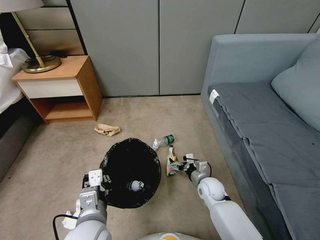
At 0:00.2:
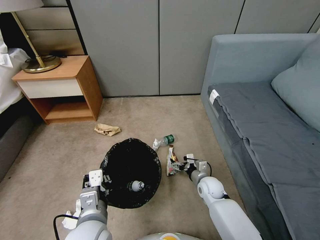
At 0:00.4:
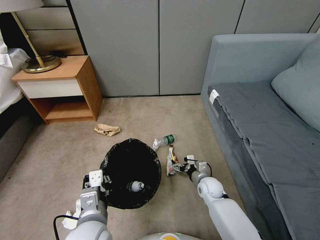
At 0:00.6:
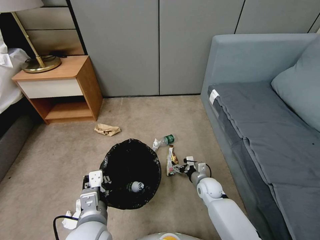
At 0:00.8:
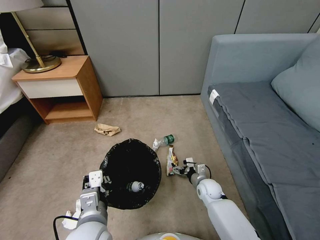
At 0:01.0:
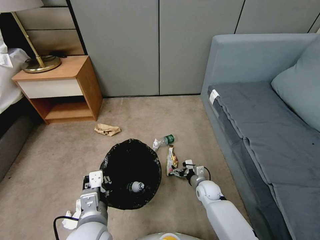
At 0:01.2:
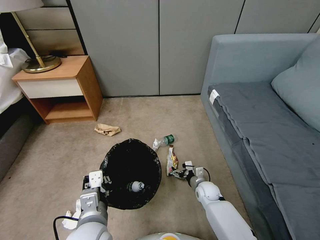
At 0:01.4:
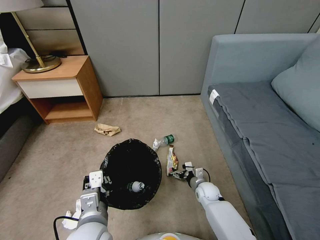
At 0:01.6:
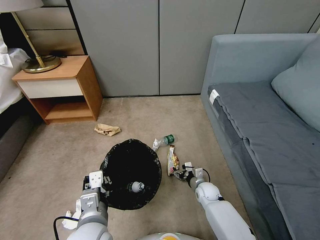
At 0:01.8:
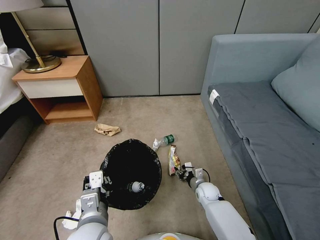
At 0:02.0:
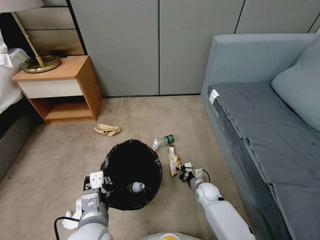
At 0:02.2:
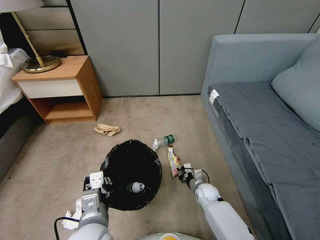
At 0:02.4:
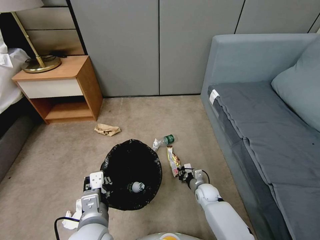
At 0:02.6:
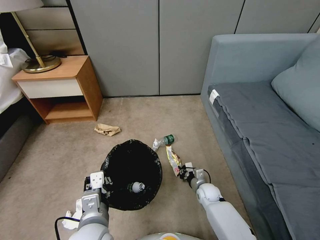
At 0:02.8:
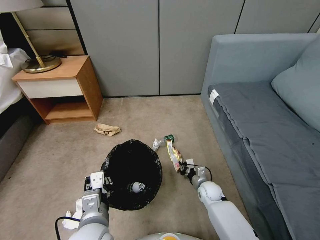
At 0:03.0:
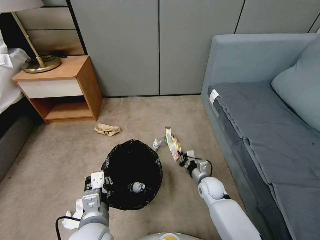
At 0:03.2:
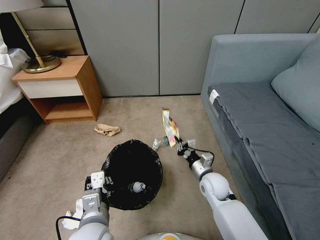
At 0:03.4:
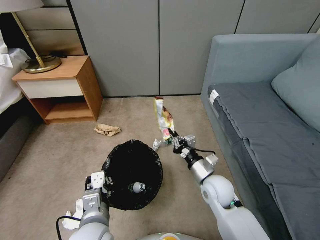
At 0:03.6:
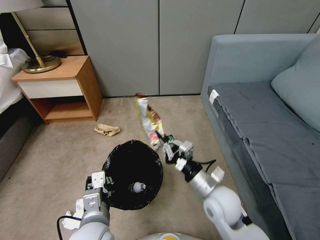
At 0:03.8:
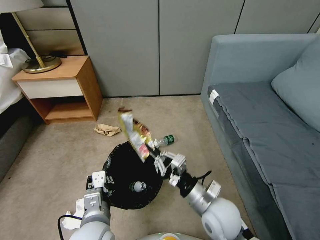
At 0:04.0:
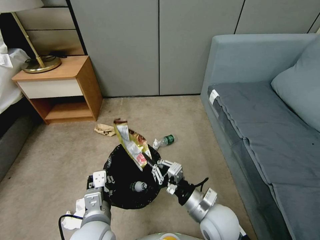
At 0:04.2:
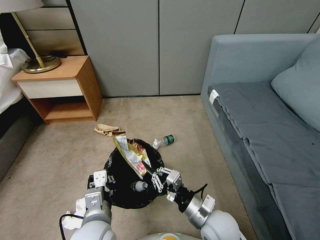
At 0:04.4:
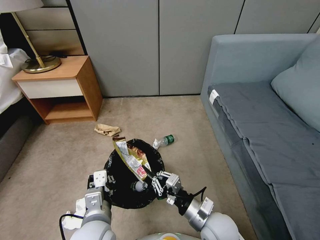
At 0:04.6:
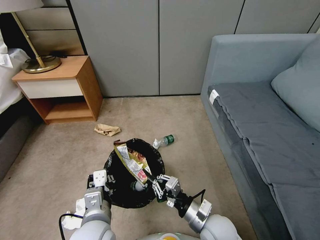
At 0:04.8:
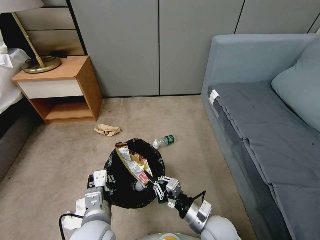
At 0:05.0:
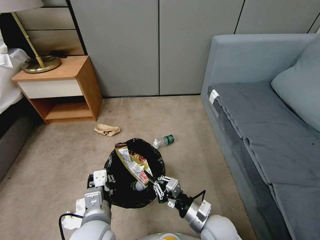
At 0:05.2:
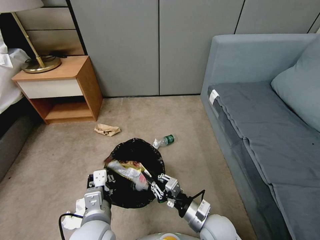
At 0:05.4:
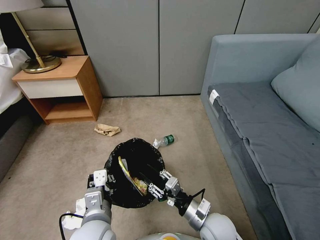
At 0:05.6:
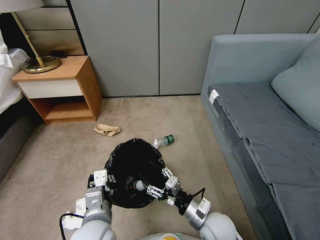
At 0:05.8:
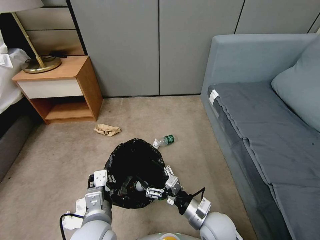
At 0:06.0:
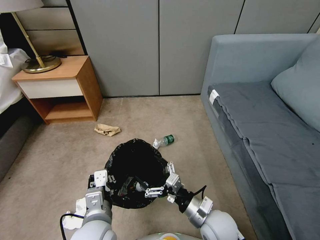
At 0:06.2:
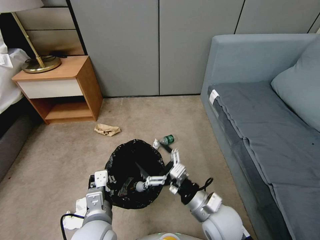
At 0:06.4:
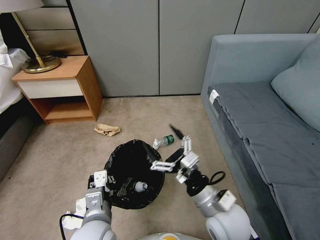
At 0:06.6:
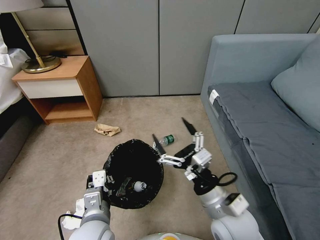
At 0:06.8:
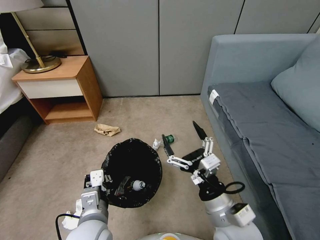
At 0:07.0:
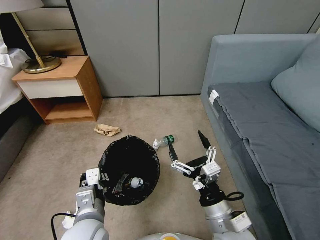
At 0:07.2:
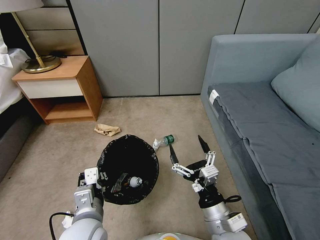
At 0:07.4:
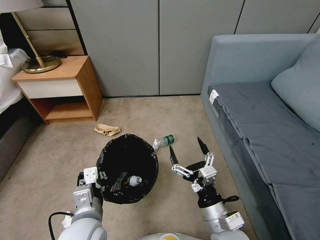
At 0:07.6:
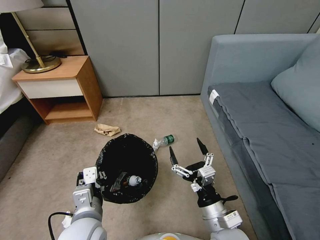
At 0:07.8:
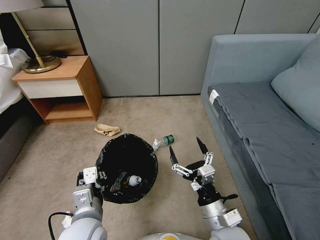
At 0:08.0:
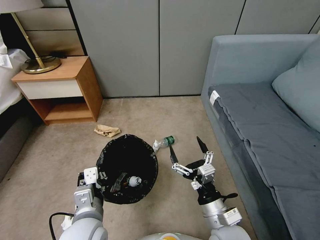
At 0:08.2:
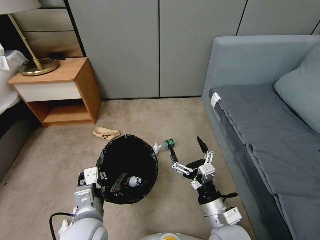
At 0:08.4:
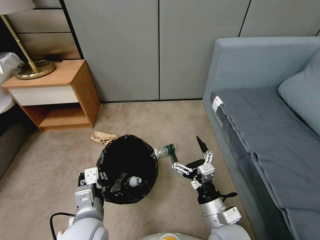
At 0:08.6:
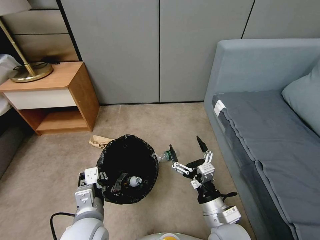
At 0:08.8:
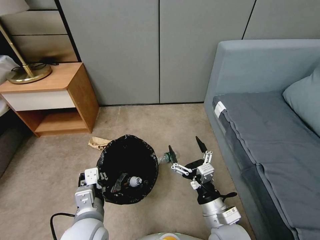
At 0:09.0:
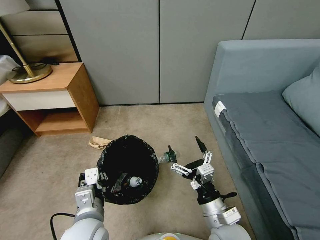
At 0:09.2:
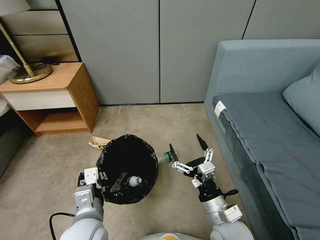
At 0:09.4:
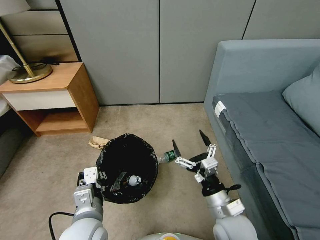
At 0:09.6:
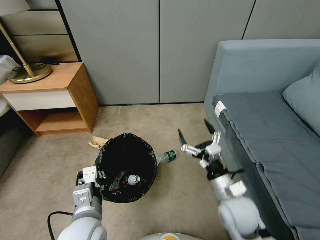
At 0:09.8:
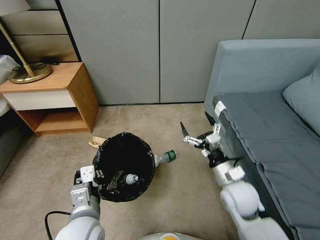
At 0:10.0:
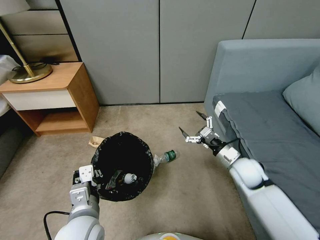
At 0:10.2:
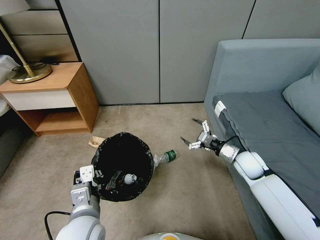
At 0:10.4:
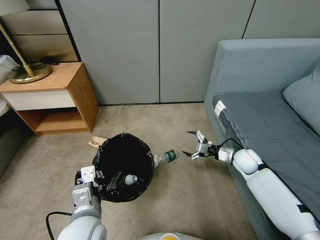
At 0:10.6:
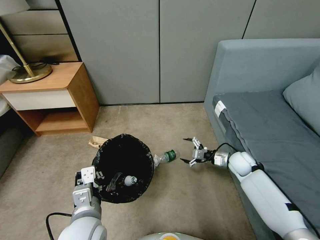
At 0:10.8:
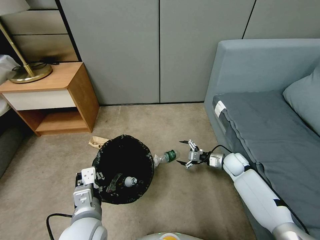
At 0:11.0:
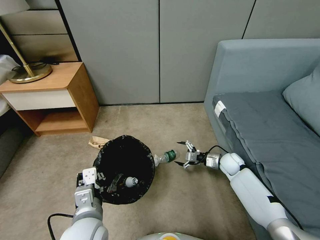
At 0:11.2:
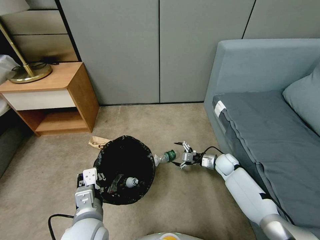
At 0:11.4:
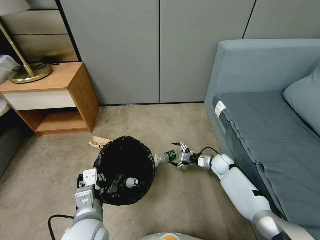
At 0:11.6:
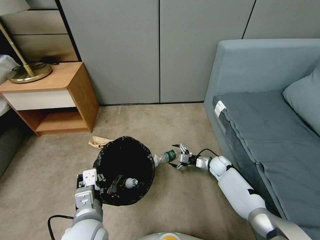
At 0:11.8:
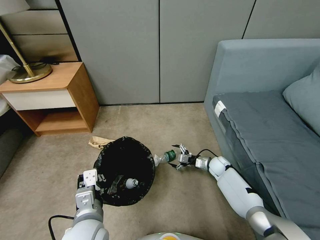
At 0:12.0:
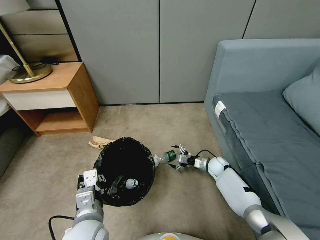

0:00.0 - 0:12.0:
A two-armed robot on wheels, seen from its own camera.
Task of the whole recording: Pick up the trash bin, then pick up the garbage from the floor and place it into the trash bin.
0:00.0 - 0:01.6: The right gripper heads downward, covering roughly 10 cm.
0:01.6 - 0:03.0: The right gripper travels upward by roughly 5 cm, and closes its fingers.
0:03.0 - 0:04.4: The right gripper moves backward and upward, some 20 cm.
0:04.4 - 0:06.0: The right gripper opens its fingers.
0:06.0 - 0:07.6: The right gripper moves approximately 10 cm upward and comes back.
0:09.0 - 0:10.4: The right gripper shifts about 30 cm forward and to the right.
0:10.4 - 0:12.0: The right gripper heads downward and to the left, covering roughly 15 cm.

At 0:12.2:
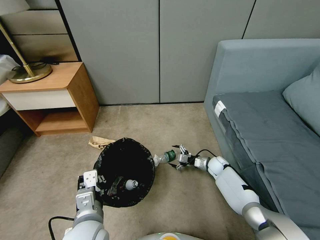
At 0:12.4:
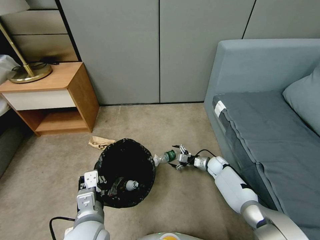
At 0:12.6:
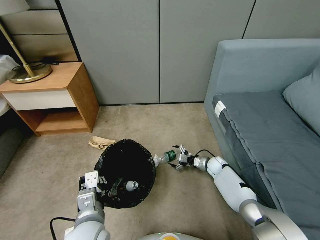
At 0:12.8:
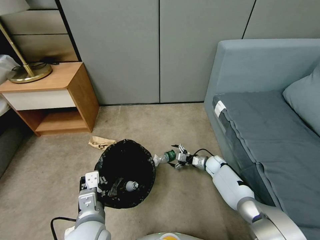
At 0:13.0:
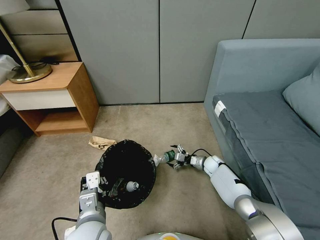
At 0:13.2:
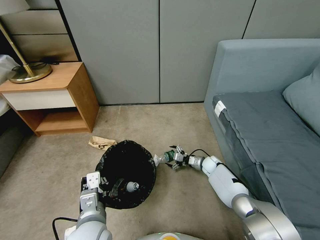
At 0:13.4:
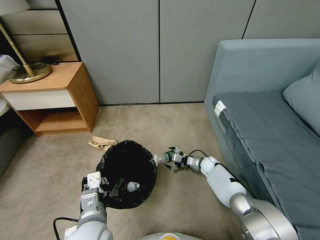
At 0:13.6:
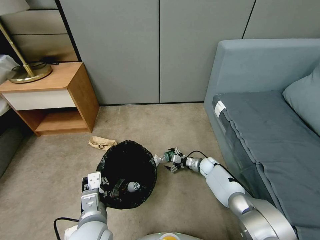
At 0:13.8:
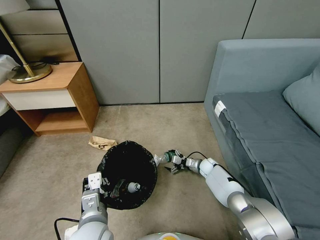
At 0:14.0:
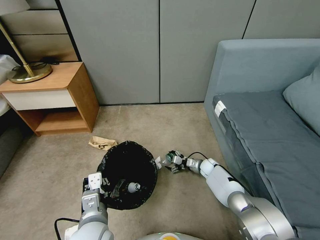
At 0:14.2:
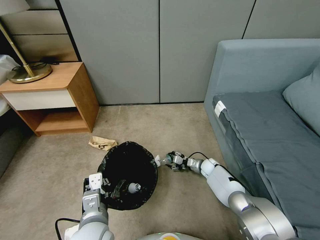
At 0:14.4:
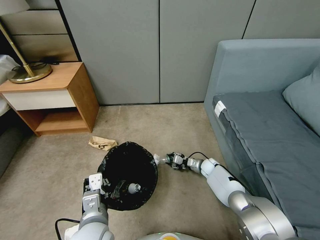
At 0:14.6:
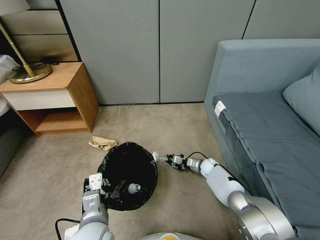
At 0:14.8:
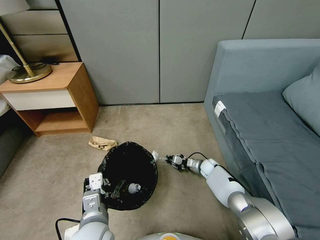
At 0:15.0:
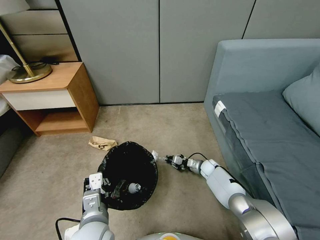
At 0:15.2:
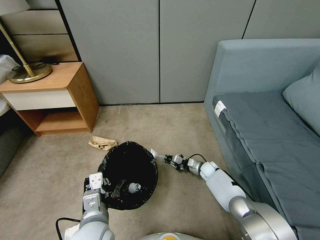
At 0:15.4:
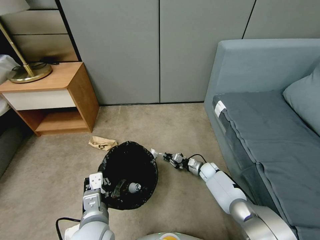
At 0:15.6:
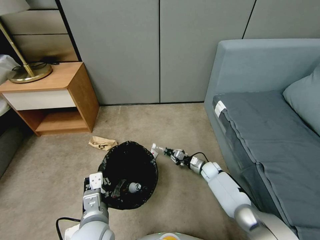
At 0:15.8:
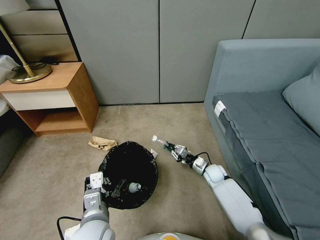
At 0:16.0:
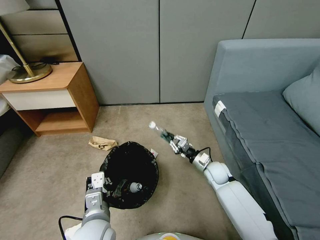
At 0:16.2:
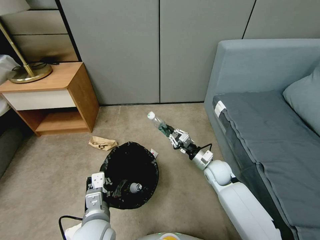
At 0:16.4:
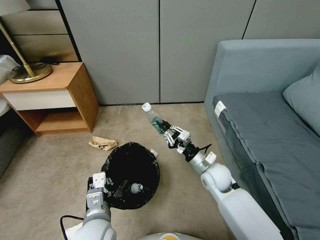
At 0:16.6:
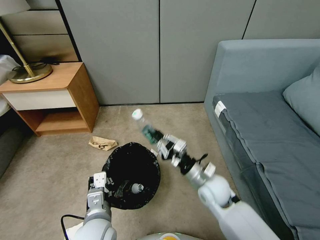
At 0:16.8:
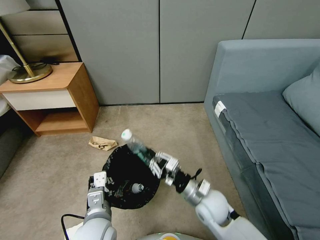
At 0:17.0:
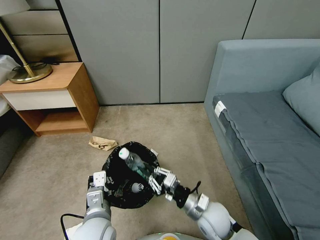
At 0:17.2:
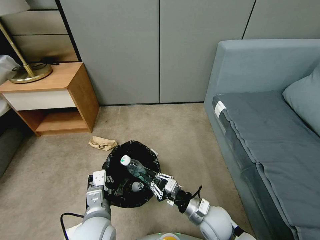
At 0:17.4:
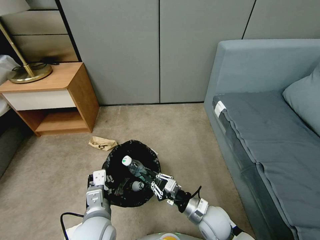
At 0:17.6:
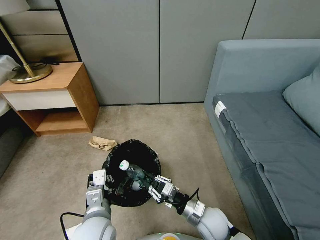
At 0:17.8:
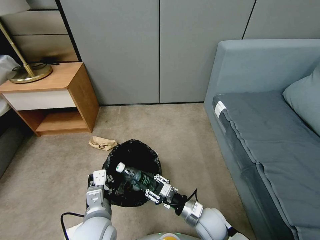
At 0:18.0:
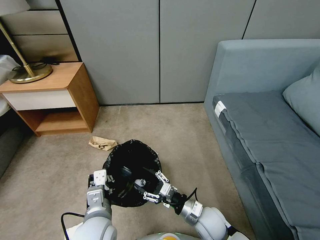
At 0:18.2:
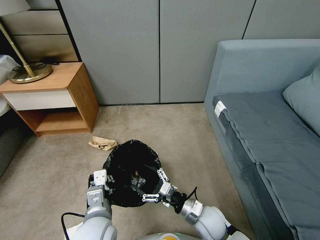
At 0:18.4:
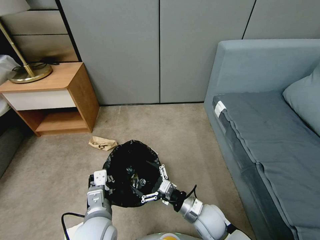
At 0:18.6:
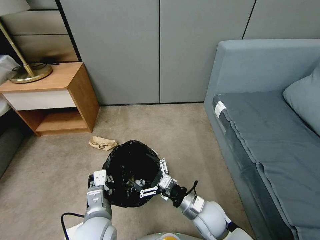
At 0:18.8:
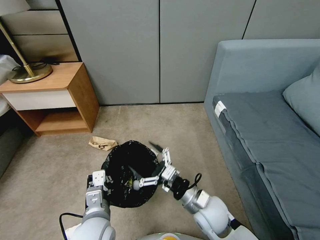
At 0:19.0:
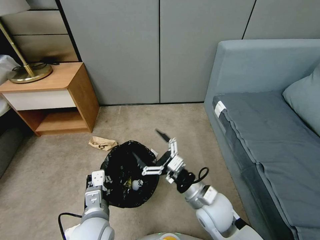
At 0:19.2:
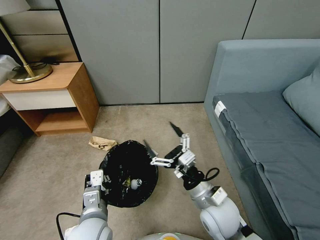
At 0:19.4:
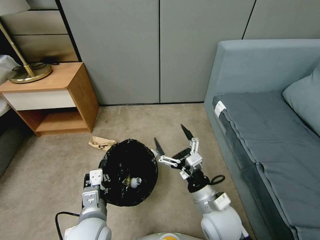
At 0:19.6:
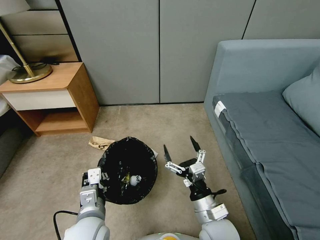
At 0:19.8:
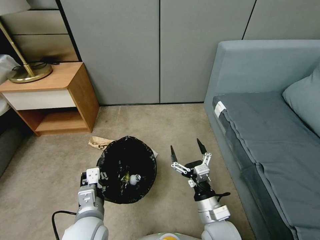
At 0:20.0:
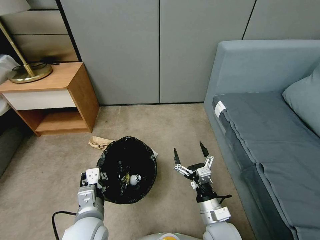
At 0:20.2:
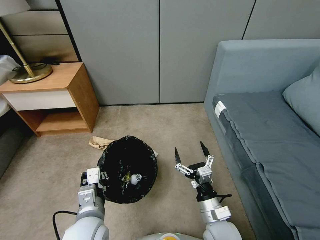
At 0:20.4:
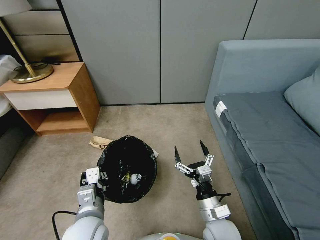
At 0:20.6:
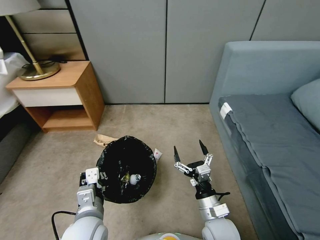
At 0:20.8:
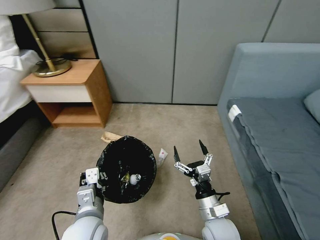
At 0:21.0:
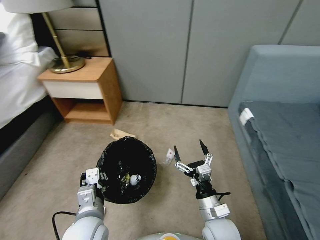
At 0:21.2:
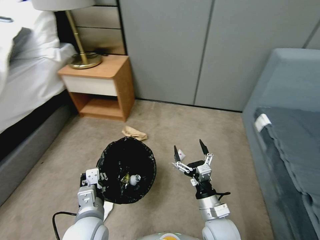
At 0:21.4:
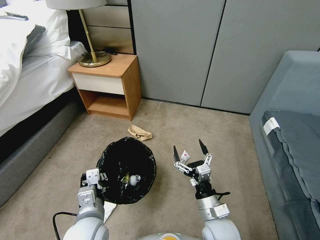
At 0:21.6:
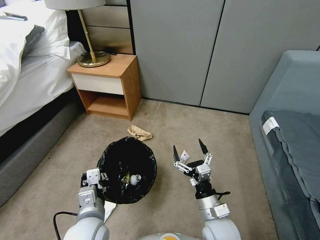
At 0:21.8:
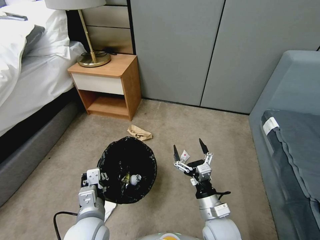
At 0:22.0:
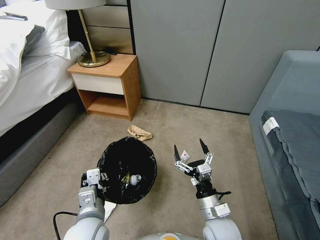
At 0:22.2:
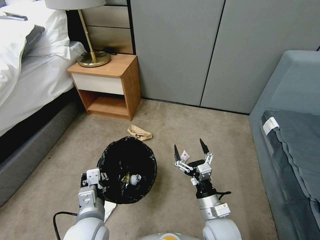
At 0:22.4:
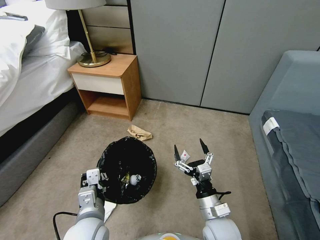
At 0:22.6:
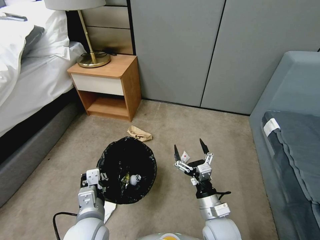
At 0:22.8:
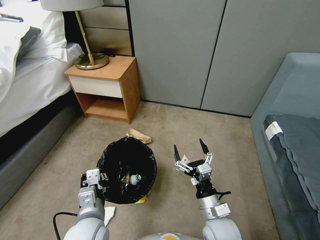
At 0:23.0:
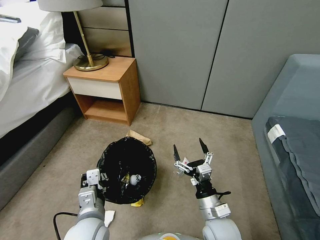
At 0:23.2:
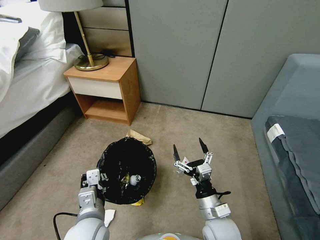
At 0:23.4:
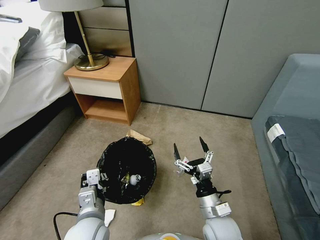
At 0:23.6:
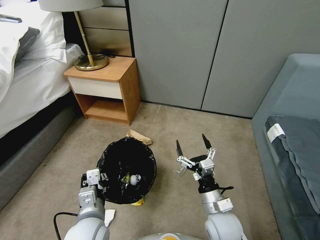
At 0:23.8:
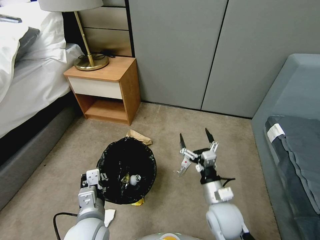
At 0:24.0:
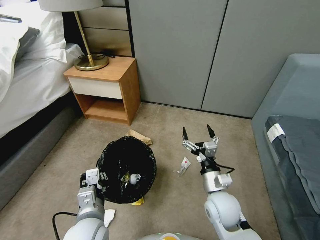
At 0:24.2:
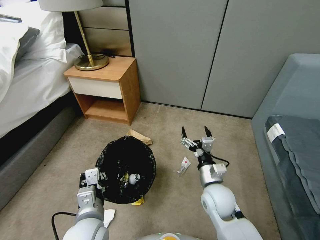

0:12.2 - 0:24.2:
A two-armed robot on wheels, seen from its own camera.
Task of the whole recording: Pick up the trash bin, then pick up the garbage from the floor and place it into the trash bin.
0:12.2 - 0:13.8: The grippers make only small movements.
0:13.8 - 0:15.2: The right gripper closes its fingers.
0:15.2 - 0:16.6: The right gripper goes roughly 25 cm upward and backward.
0:16.6 - 0:18.2: The right gripper goes roughly 10 cm downward and backward, and opens its fingers.
0:18.2 - 0:19.8: The right gripper travels upward by some 5 cm.
0:21.2 - 0:22.6: The two grippers keep their place.
0:22.6 - 0:24.2: The right gripper goes about 10 cm forward.
